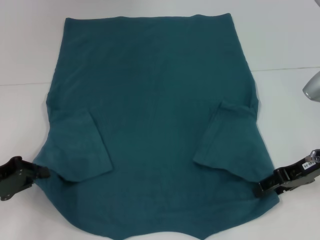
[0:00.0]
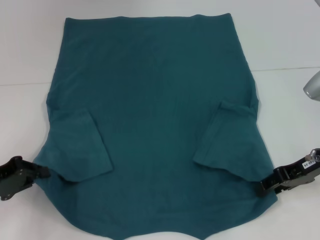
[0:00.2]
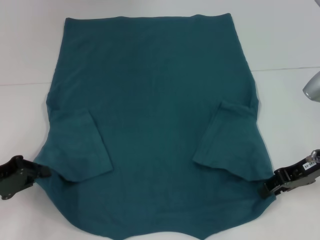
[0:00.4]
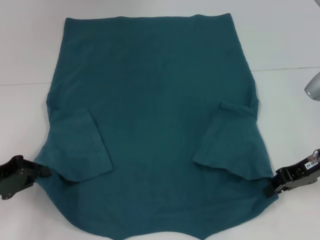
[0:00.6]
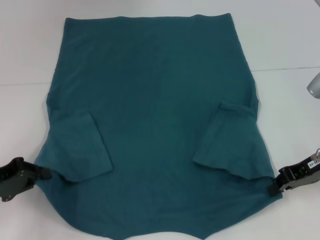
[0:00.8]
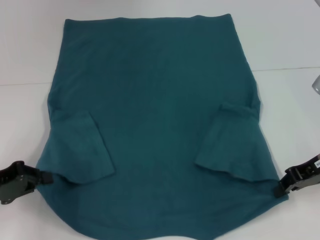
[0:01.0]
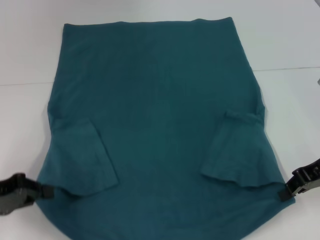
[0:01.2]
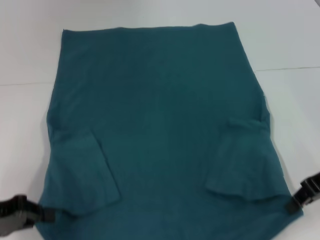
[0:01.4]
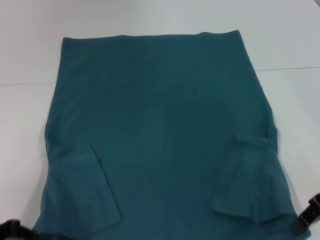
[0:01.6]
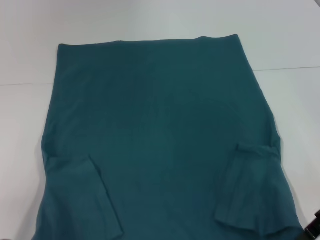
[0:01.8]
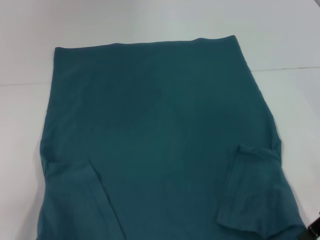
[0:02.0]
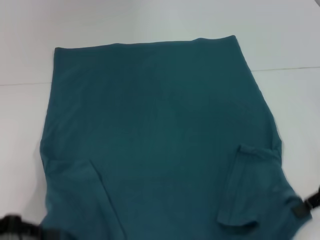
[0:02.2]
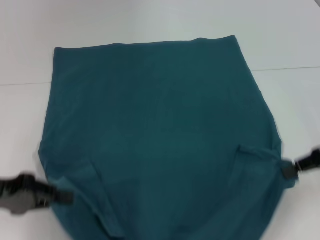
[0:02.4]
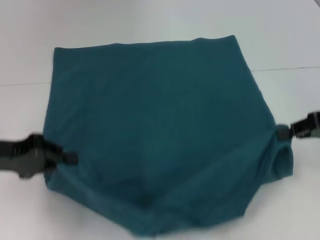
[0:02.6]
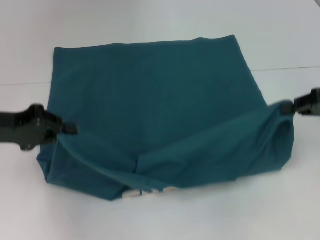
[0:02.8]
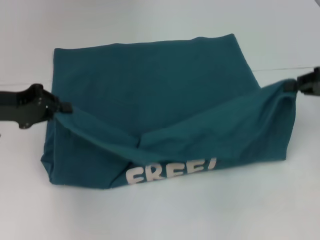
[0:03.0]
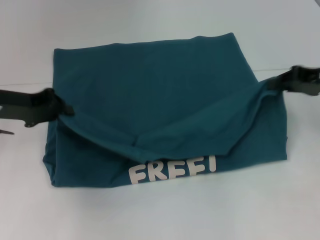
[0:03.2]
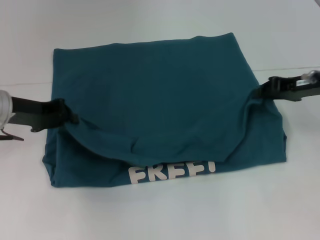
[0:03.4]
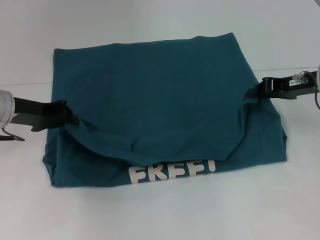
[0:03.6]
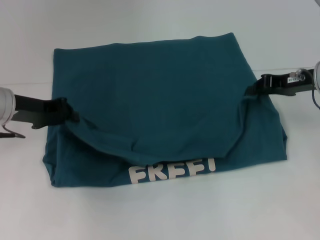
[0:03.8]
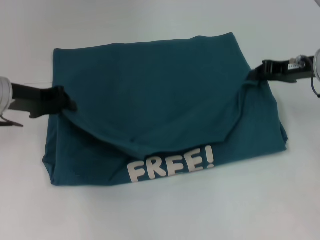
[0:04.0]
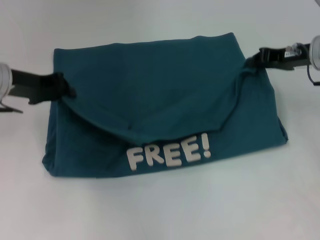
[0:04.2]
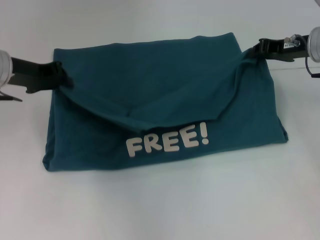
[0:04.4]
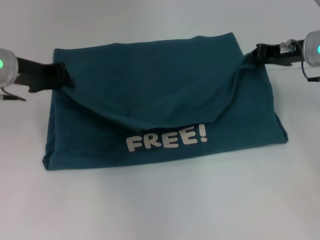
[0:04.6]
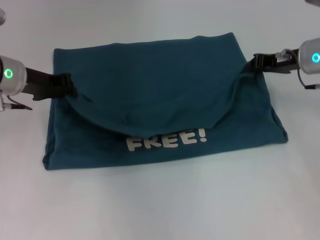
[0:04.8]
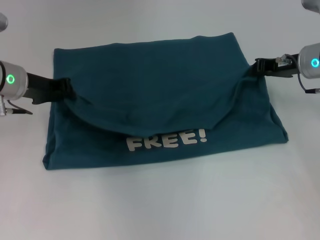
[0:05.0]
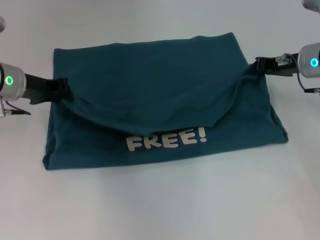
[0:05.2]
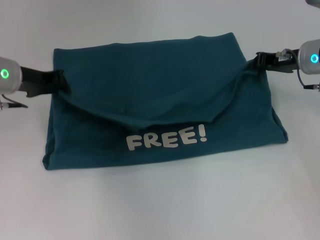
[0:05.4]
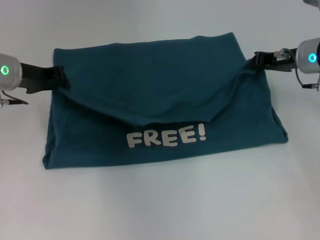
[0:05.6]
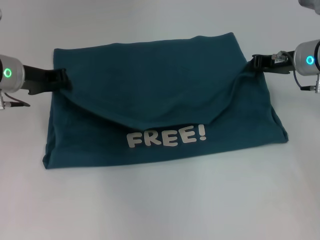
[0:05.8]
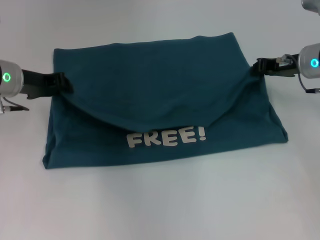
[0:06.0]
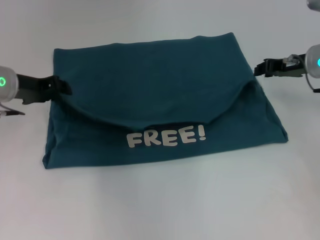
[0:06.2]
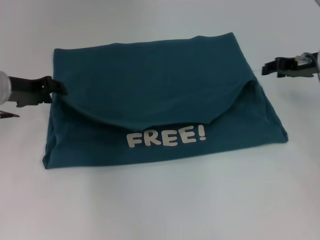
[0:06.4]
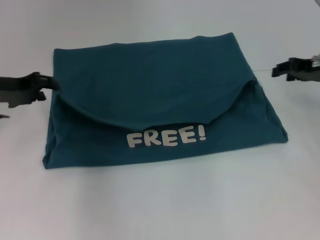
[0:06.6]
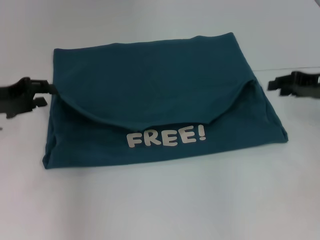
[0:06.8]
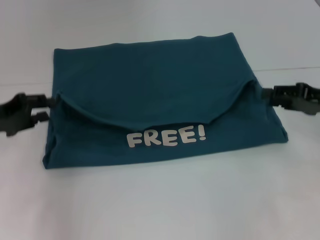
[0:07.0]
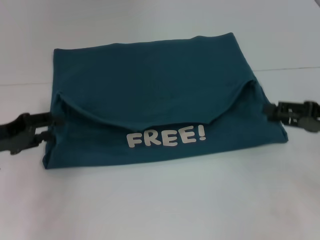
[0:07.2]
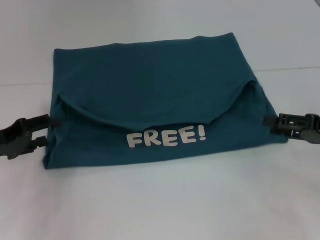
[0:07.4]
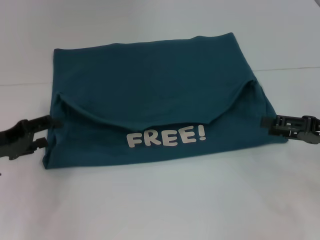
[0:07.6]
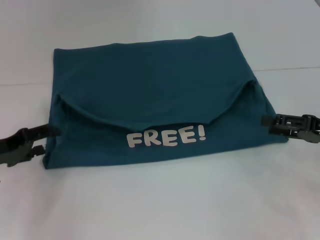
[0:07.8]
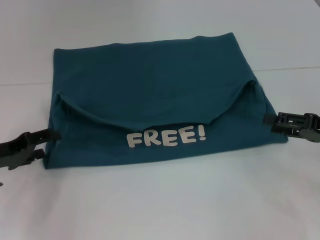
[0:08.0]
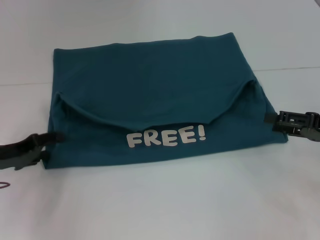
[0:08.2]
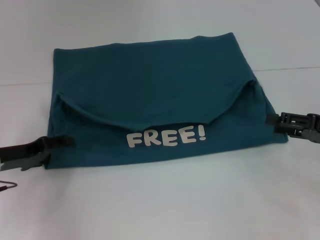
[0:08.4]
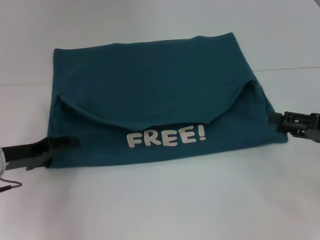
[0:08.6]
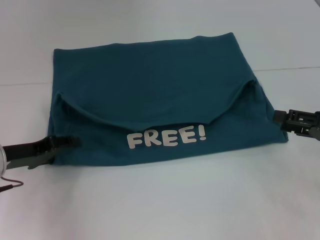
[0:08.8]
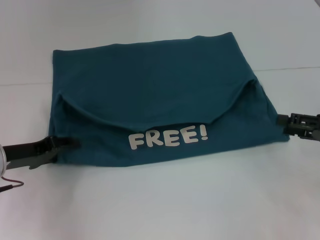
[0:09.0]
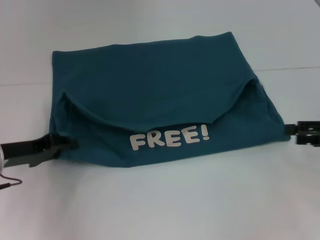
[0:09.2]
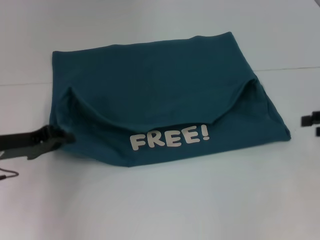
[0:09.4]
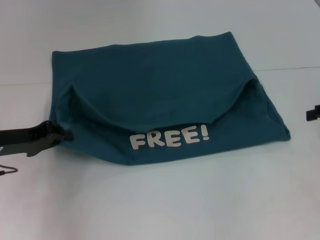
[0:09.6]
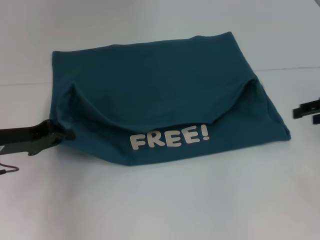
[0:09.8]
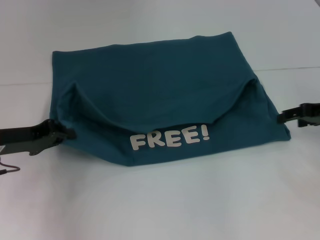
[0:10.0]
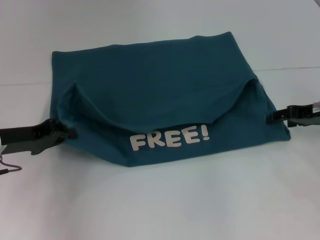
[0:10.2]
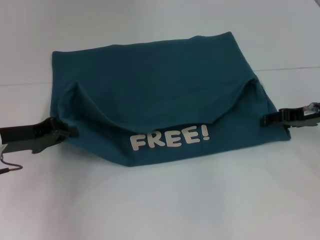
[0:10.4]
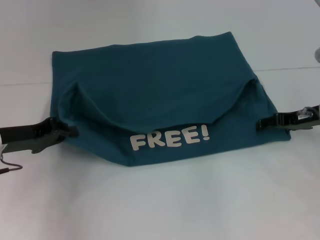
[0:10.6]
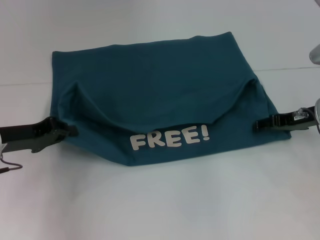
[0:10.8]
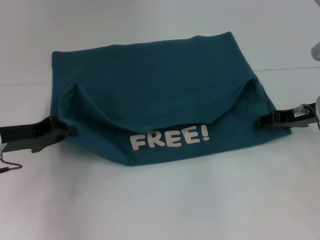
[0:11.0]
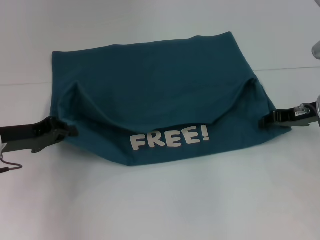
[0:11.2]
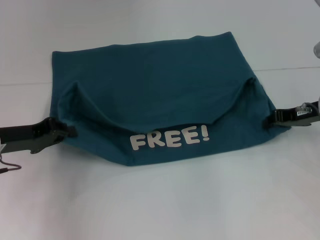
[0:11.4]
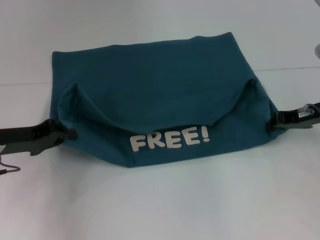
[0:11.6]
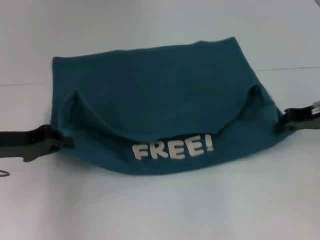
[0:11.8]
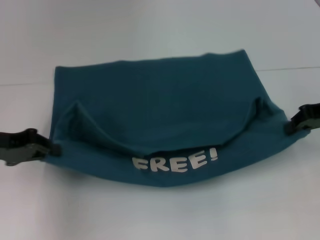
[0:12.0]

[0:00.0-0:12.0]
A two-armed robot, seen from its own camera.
Step, 0:00.8 to 0:06.2: Fold the clothes to the left.
Step, 0:00.8 to 0:06.2: Fold the clothes to the right.
0:00.0 to 0:01.6: The right gripper shifts by about 5 cm, and closes.
0:01.6 to 0:03.0: The right gripper heads to the right, covering approximately 5 cm; the left gripper shifts approximately 15 cm forward and upward.
0:03.0 to 0:04.4: The right gripper goes roughly 10 cm forward and to the left. Meanwhile the left gripper is displaced forward by approximately 5 cm.
0:04.4 to 0:06.0: The grippers stay close to where they were, moving slightly.
0:06.0 to 0:07.6: The right gripper goes approximately 15 cm backward and to the right, and opens up. Meanwhile the left gripper shifts about 15 cm backward, to the left and downward, and opens its fingers.
0:07.6 to 0:09.0: The grippers make only small movements.
0:09.0 to 0:10.4: The left gripper closes its fingers. Meanwhile the right gripper moves forward, roughly 10 cm.
0:10.4 to 0:12.0: The right gripper travels upward by about 5 cm, and closes its fingers.

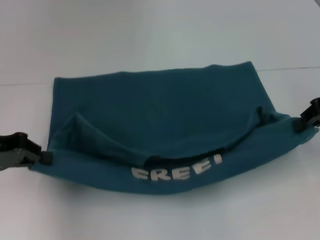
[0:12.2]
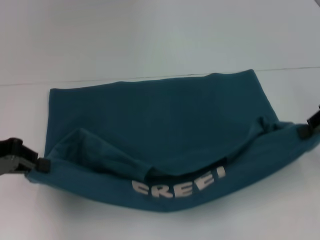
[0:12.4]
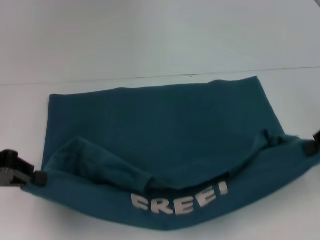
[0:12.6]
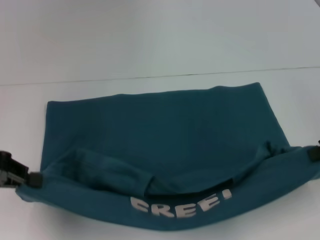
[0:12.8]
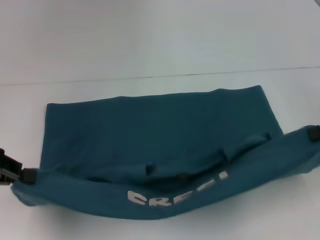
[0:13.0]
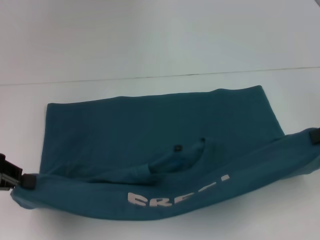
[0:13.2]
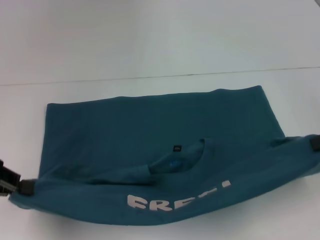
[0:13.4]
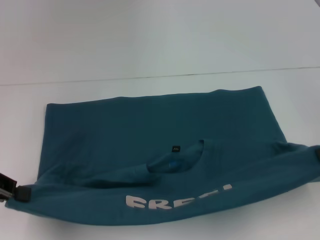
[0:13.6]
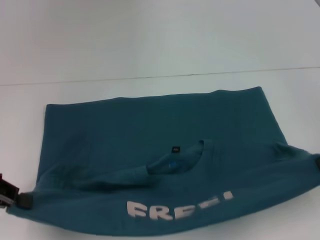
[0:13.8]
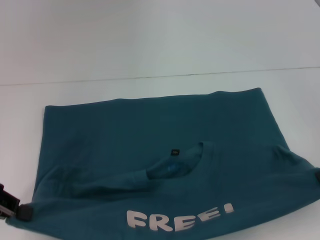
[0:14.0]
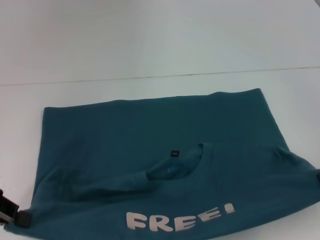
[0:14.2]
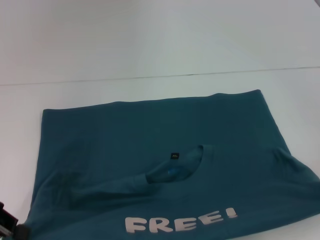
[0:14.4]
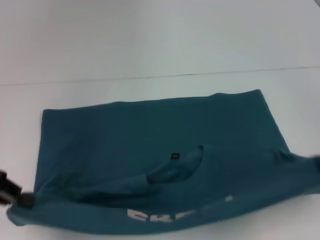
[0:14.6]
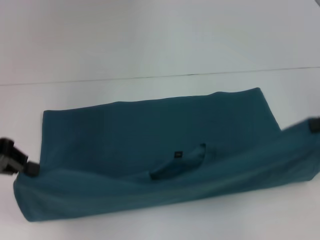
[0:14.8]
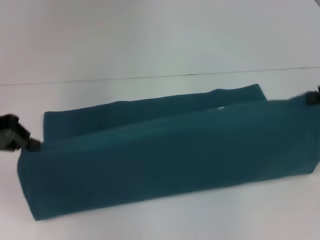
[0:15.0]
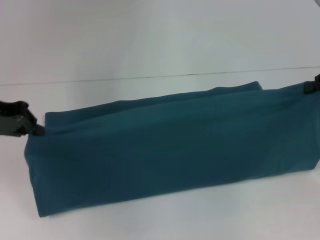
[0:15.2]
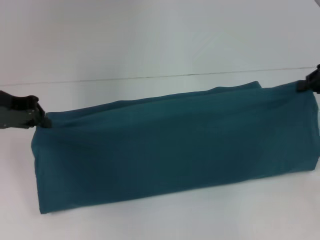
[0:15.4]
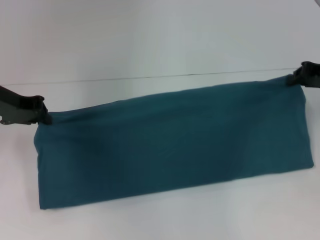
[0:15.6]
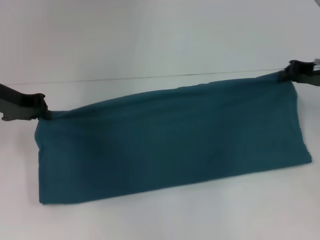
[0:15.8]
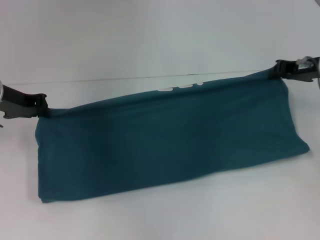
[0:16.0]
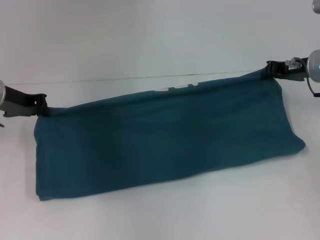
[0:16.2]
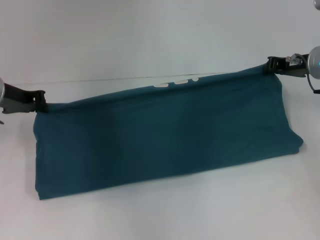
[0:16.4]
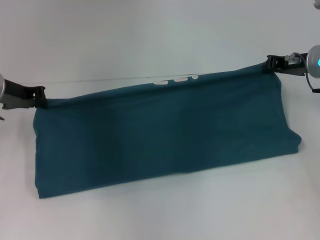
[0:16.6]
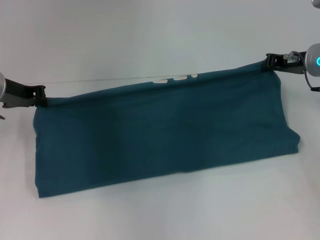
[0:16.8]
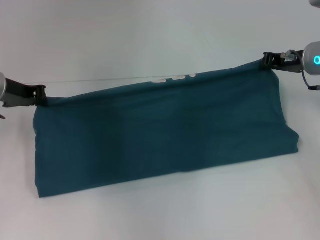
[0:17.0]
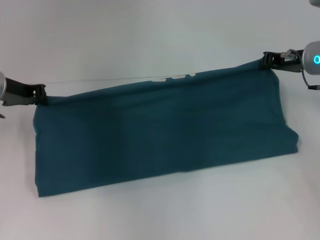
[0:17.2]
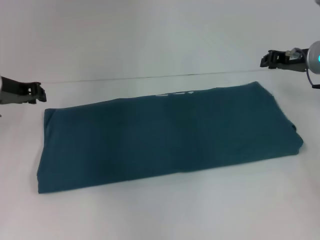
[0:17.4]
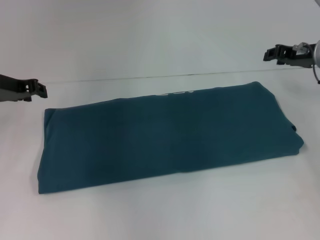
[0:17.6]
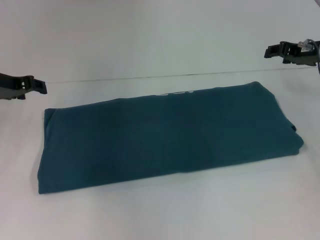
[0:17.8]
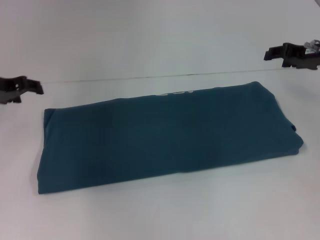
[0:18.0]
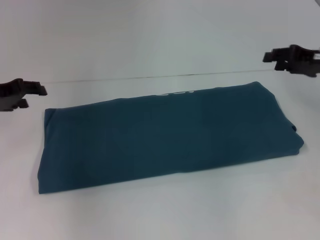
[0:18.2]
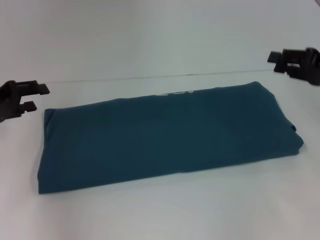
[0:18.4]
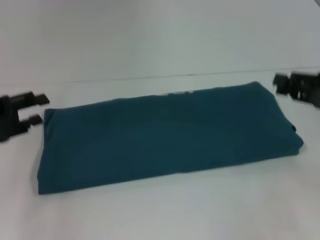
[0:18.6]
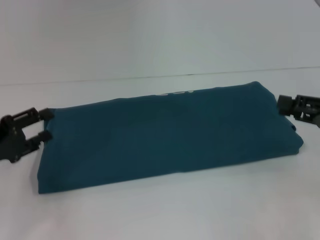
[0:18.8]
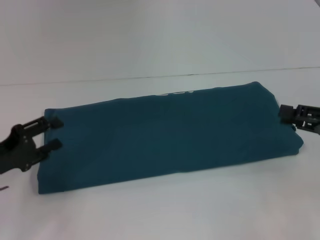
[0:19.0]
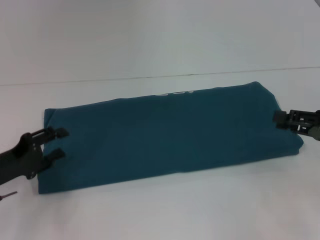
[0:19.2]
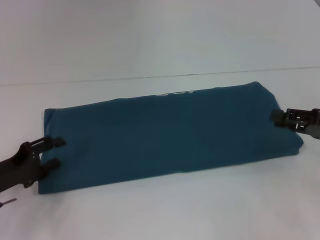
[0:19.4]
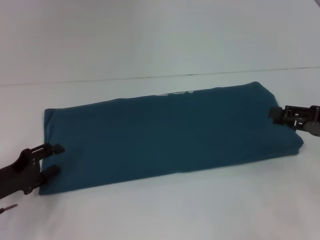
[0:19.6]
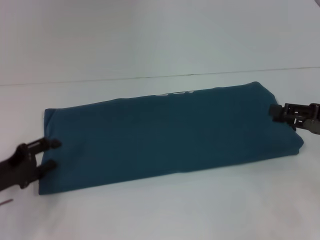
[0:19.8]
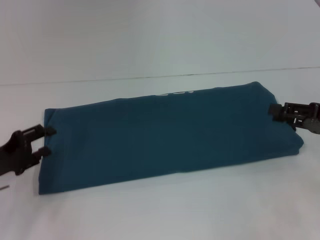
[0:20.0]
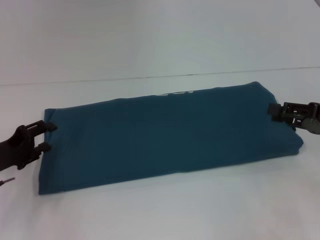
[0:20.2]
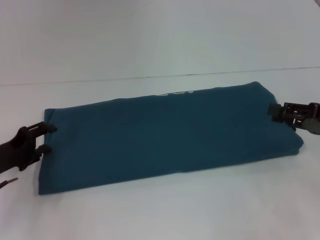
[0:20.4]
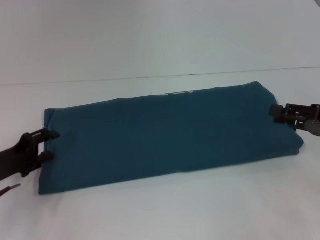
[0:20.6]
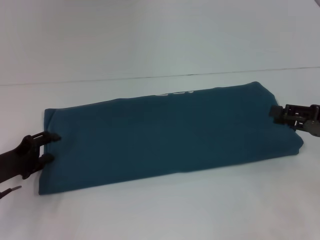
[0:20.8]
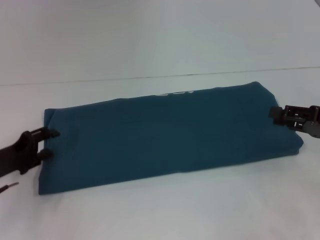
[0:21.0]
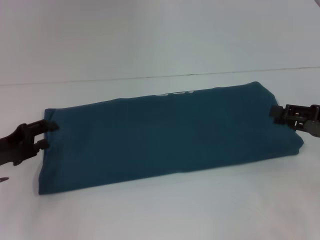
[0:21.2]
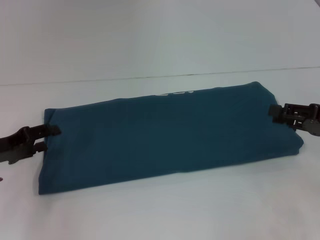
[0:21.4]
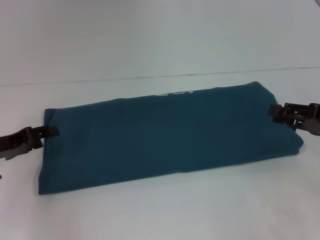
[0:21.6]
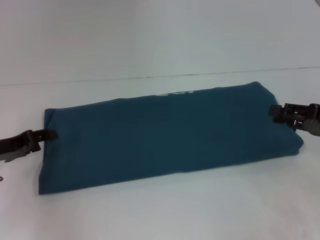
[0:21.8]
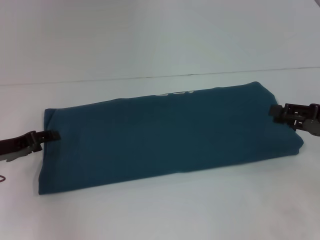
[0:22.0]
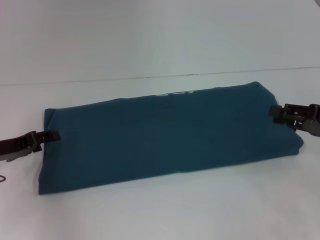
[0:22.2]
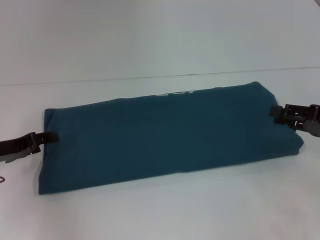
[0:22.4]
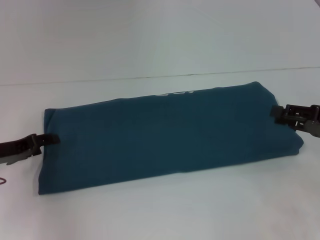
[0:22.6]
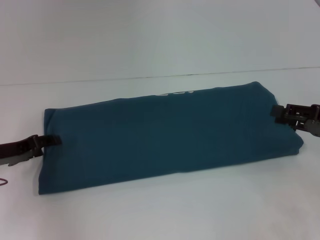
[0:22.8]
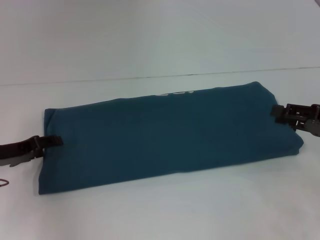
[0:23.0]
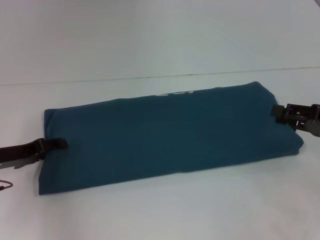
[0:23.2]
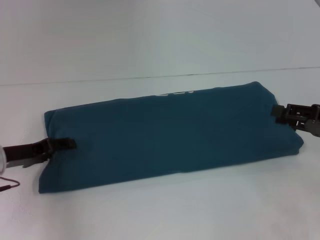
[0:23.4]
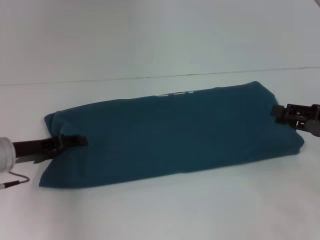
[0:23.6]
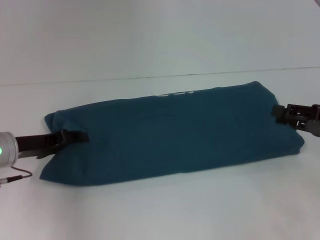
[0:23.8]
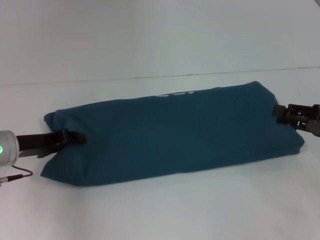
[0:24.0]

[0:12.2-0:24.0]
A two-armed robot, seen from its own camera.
Step, 0:13.2 to 0:17.4: Fold the clothes to the right.
0:12.2 to 0:13.6: The left gripper ends up roughly 5 cm from where it was. Meanwhile the right gripper shifts by some 5 cm.
0:13.6 to 0:15.2: The right gripper is displaced forward by about 5 cm, while the left gripper shifts approximately 10 cm forward.
0:15.2 to 0:16.6: The right gripper shifts about 15 cm to the left, forward and downward. The left gripper ends up some 10 cm from where it was.
0:16.6 to 0:18.2: The right gripper moves about 5 cm, and opens its fingers. Meanwhile the left gripper ends up approximately 5 cm from where it was, and opens up.
0:18.2 to 0:19.6: The right gripper travels backward by approximately 10 cm. Meanwhile the left gripper heads downward and backward, covering about 15 cm.
0:19.6 to 0:21.0: There are only small adjustments of the grippers.
0:22.6 to 0:24.0: There are only small adjustments of the grippers.
